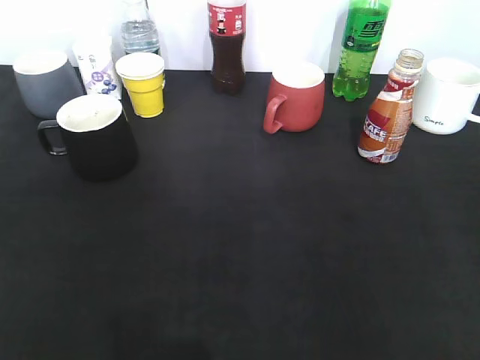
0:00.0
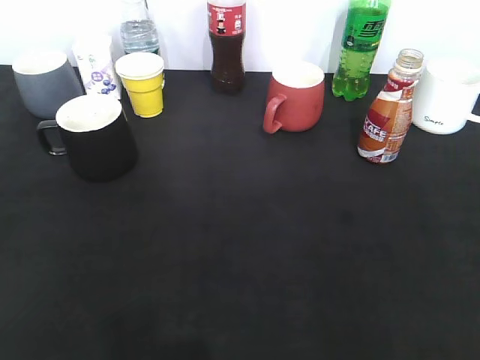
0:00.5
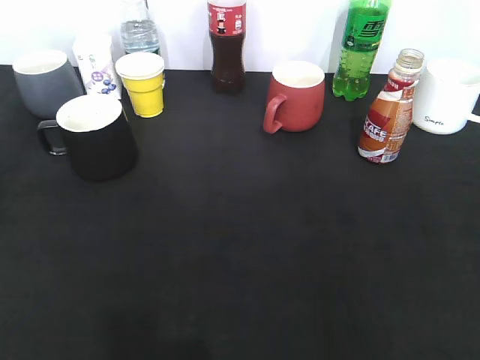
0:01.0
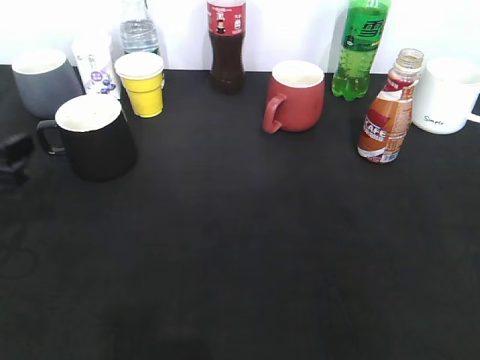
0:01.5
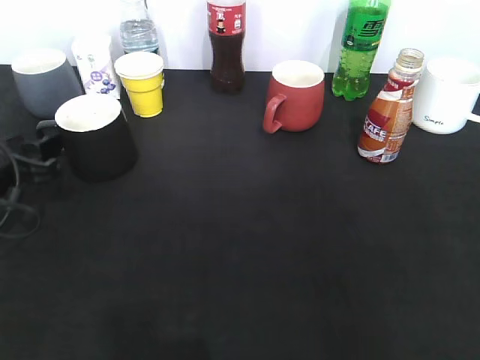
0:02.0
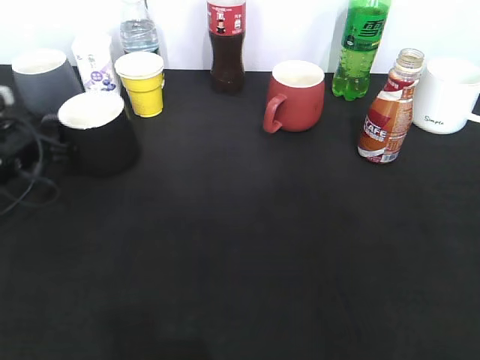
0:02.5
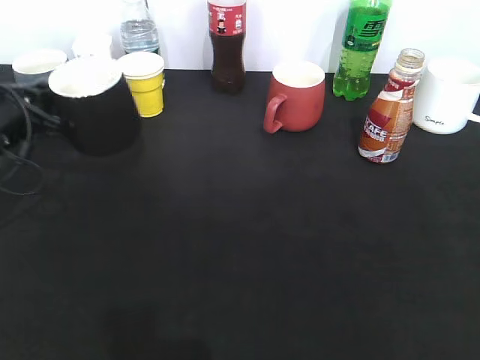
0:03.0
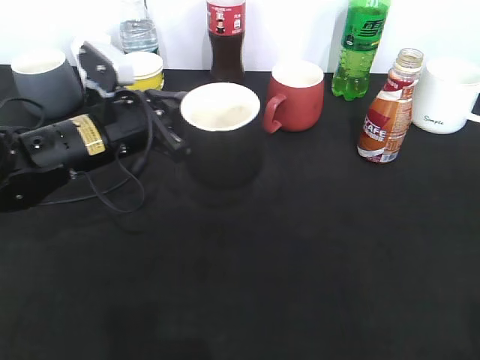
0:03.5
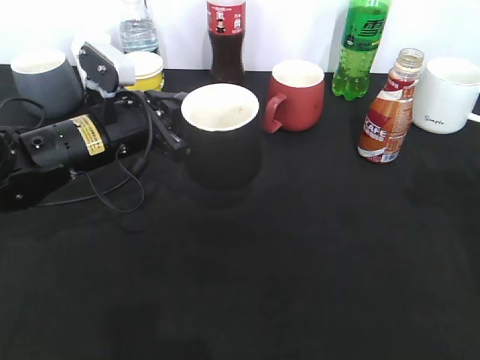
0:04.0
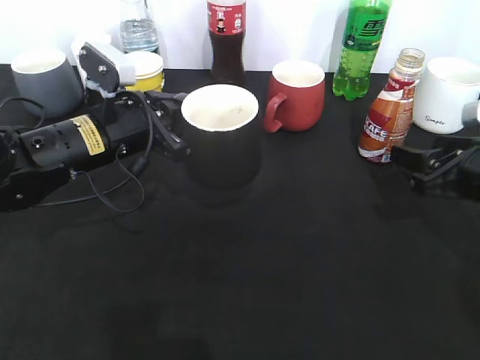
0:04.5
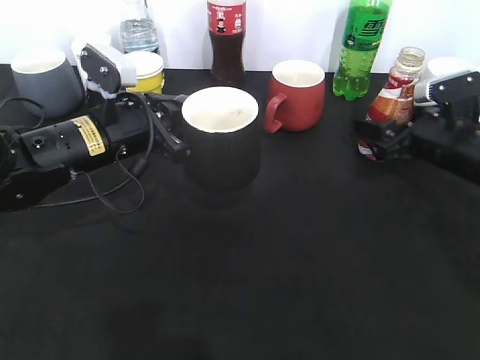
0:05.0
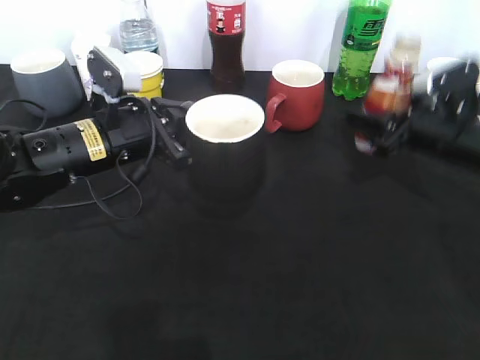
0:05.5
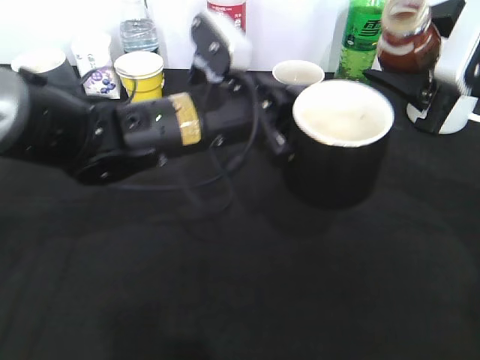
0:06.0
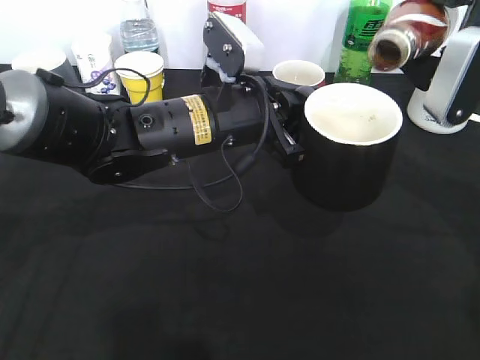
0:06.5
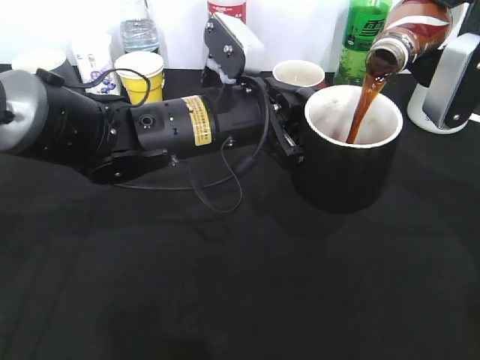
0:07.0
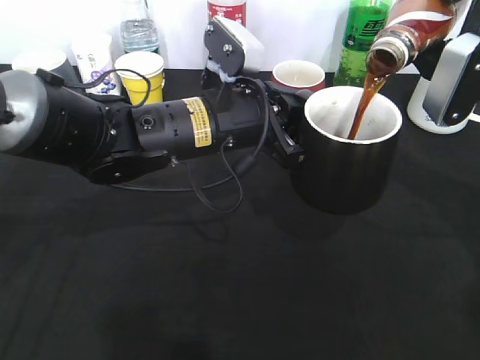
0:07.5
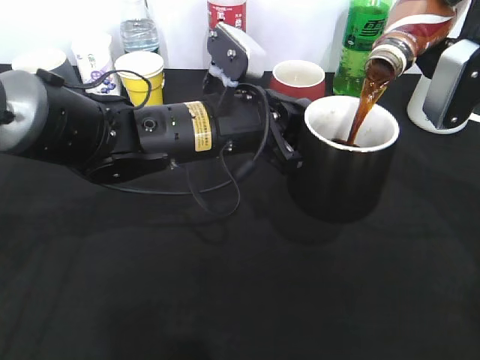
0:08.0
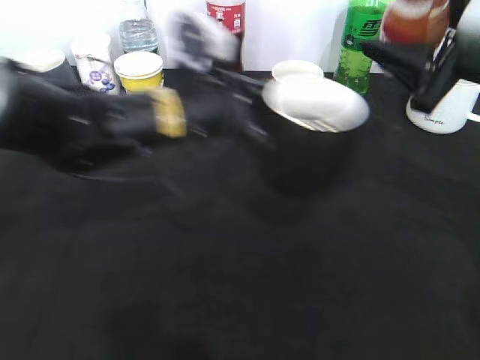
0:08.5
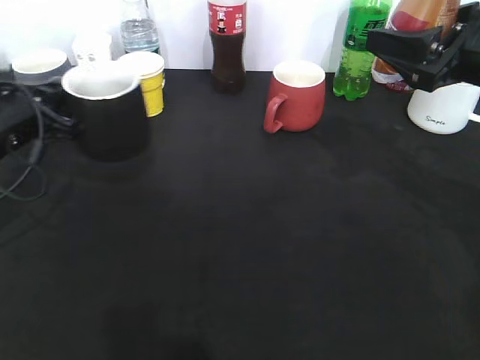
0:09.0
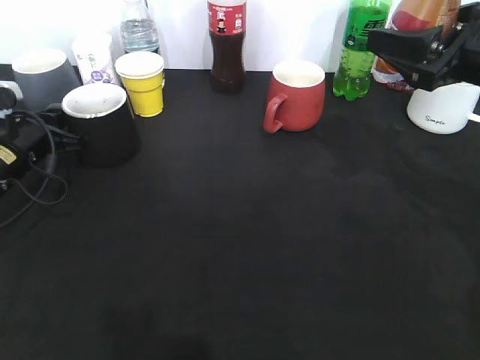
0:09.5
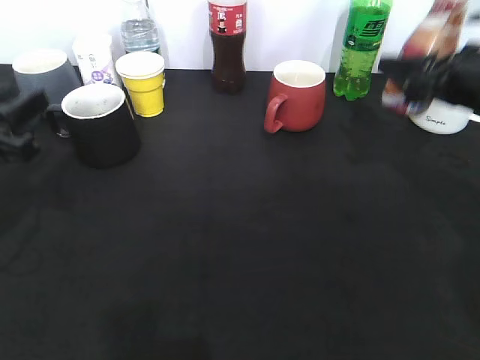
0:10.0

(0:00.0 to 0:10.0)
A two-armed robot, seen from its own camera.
Step, 0:00.5 - 0:02.5: Grasp the black cup with left gripper.
Step, 0:03.0 - 0:03.5: Lift the black cup with left gripper.
Step, 0:04.0 - 0:05.0: Grasp the bottle with coffee with right gripper.
Step, 0:05.5 - 0:08.5: Pour the coffee from bottle to cup with right gripper.
Step, 0:09.0 - 0:09.5: Place the black cup on the table with left gripper.
0:00.0 - 0:02.0: The left gripper goes some 35 cm forward and downward, and opens.
0:02.0 - 0:04.0: The right gripper shifts approximately 25 cm forward. Meanwhile the left gripper goes about 15 cm to the right, and closes up.
0:04.0 - 0:06.0: The right gripper travels forward and to the left by about 10 cm, reaches roughly 10 cm downward, then returns, and closes up, while the left gripper goes some 10 cm to the right.
0:08.0 - 0:10.0: The left gripper shifts approximately 25 cm to the left, and opens up; the right gripper goes some 5 cm downward.

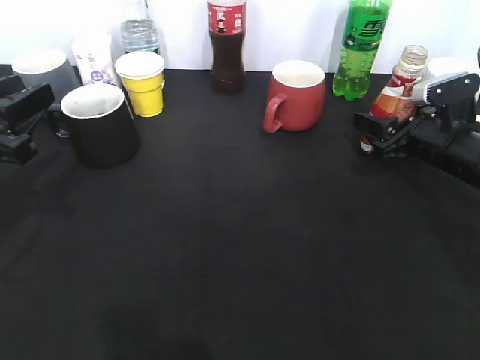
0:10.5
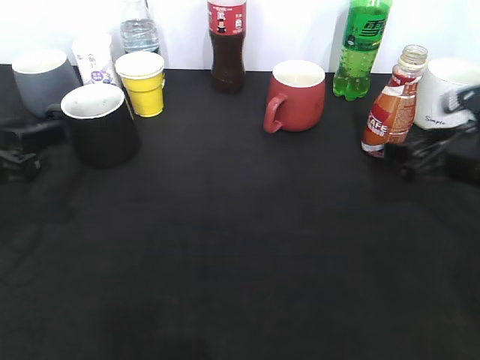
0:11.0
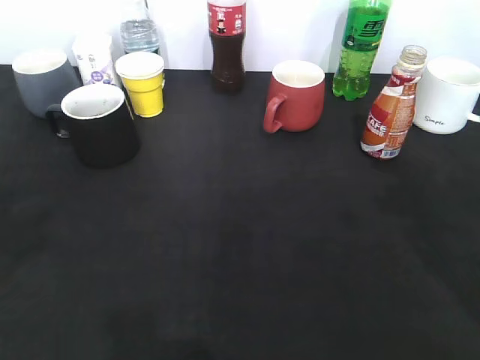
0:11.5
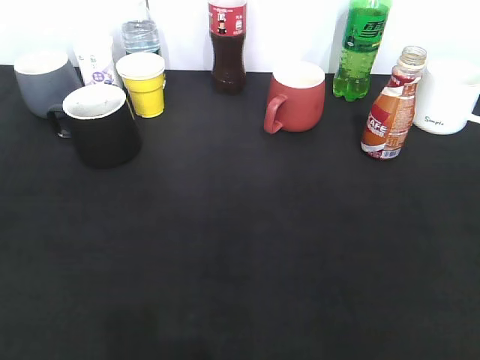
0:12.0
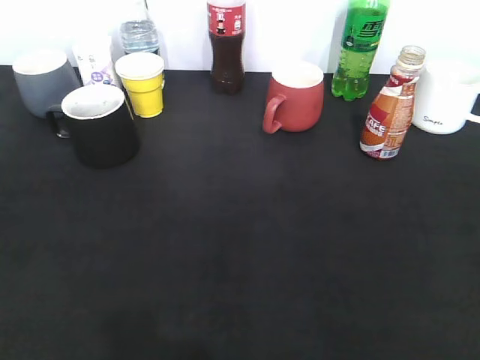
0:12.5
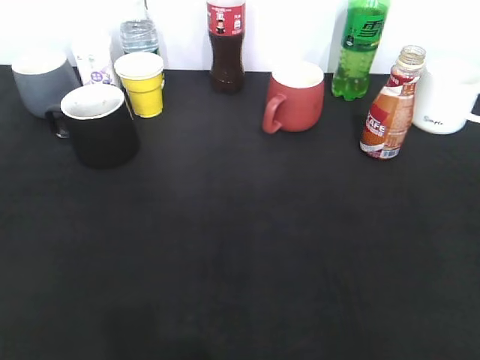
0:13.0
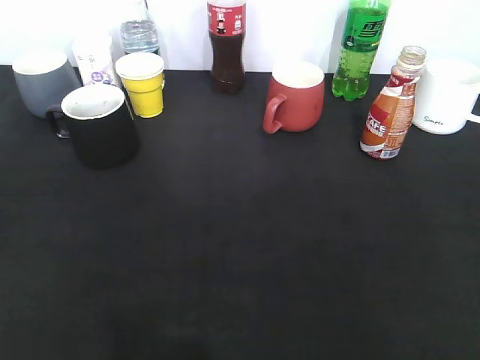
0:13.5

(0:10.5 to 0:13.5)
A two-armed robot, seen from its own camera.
0:10.5 - 0:12.0: The right gripper is displaced backward and upward by some 40 cm, and opens up. Meanwhile the left gripper goes approximately 25 cm backward.
